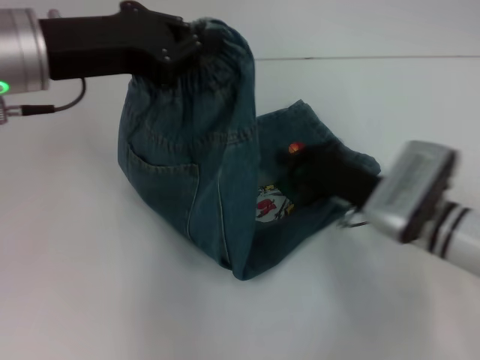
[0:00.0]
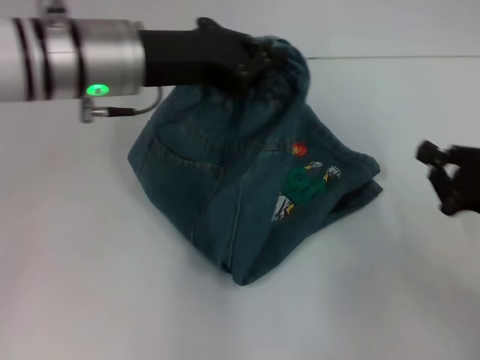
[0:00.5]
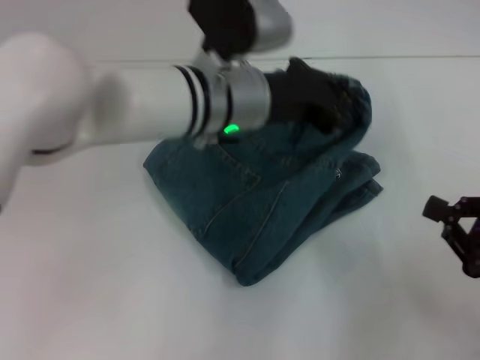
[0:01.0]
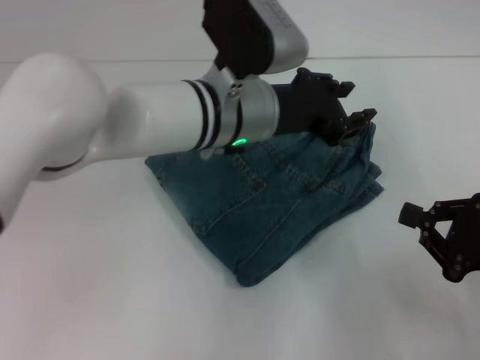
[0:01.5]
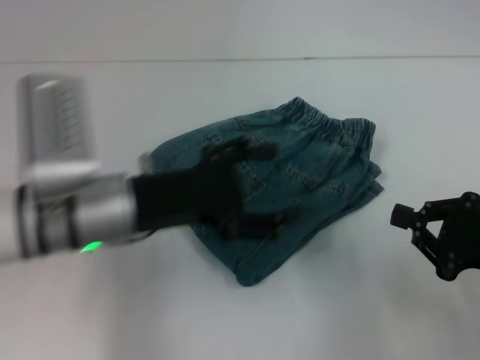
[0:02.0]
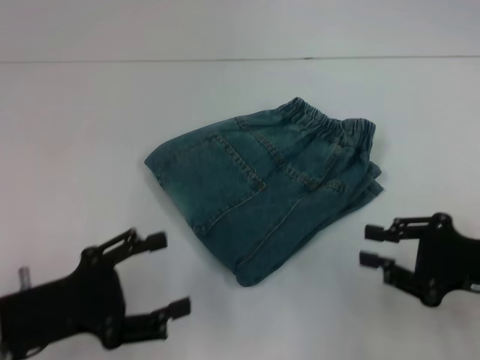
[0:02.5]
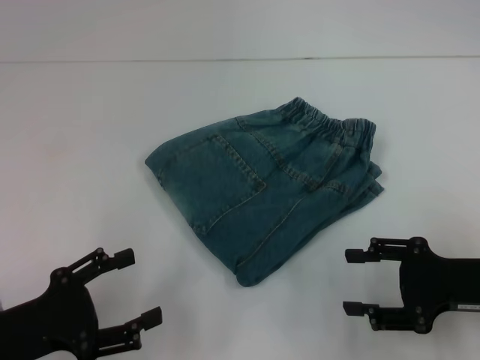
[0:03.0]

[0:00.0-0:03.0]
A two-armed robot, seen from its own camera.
Step, 0:00.0 to 0:01.5: Fold to the right with your left hand.
0:00.0 to 0:01.5: The right gripper is displaced to the right and backward by approximately 15 cm, while the left gripper is displaced to the right and downward by roughly 20 cm.
0:01.5 to 0:03.0: The right gripper opens. Meanwhile the left gripper goes some 35 cm to the left, backward and downward, and opens up.

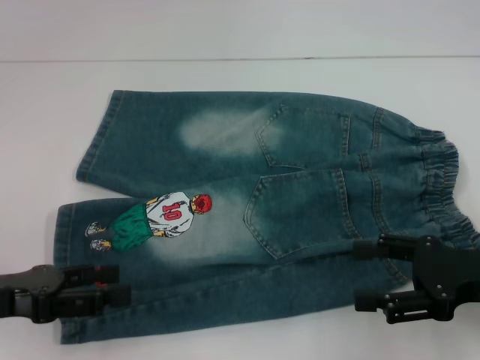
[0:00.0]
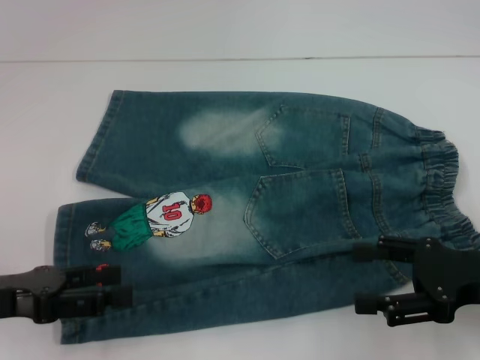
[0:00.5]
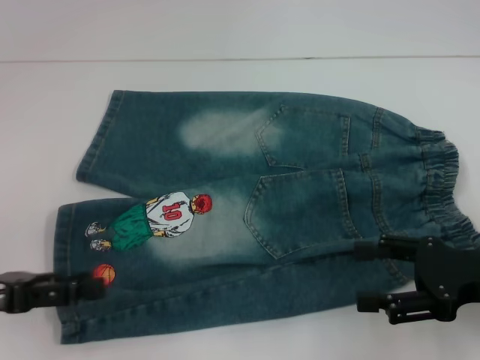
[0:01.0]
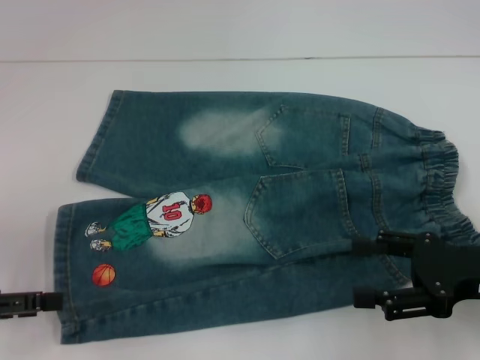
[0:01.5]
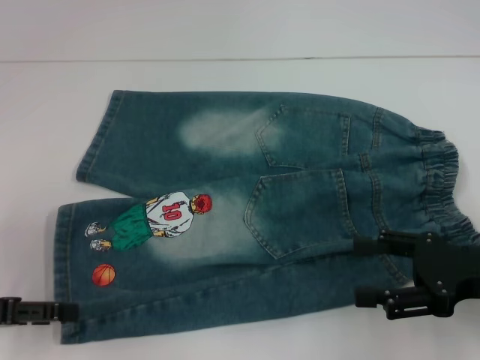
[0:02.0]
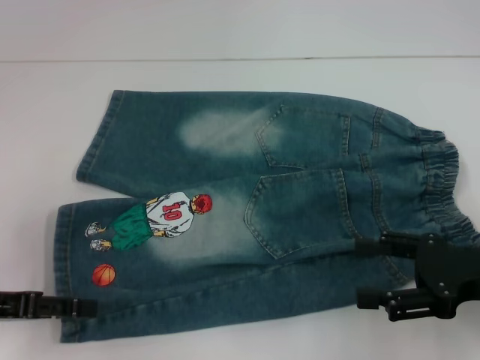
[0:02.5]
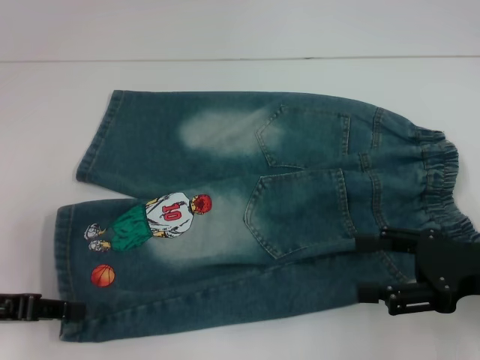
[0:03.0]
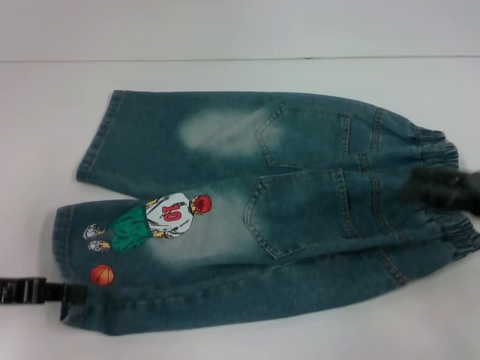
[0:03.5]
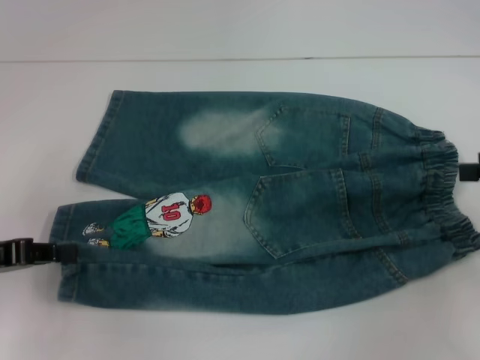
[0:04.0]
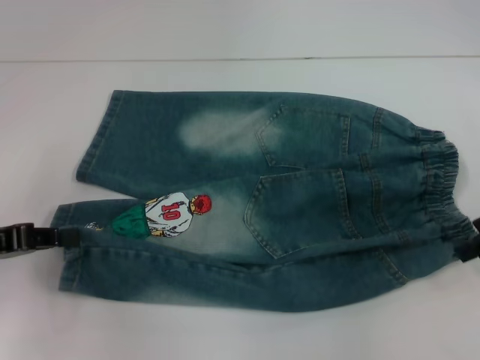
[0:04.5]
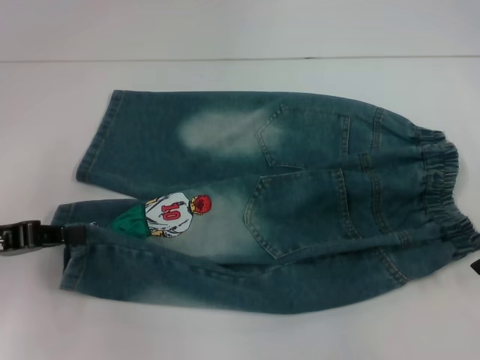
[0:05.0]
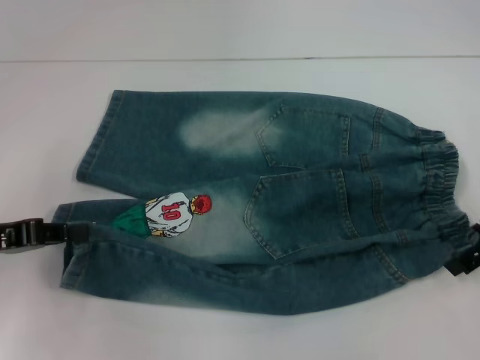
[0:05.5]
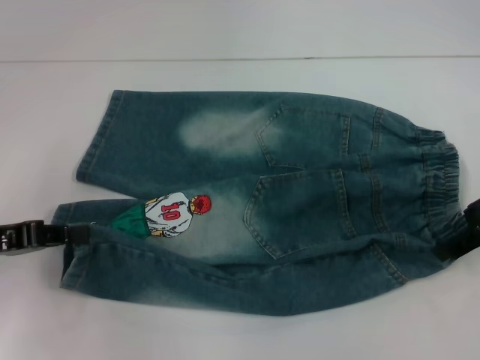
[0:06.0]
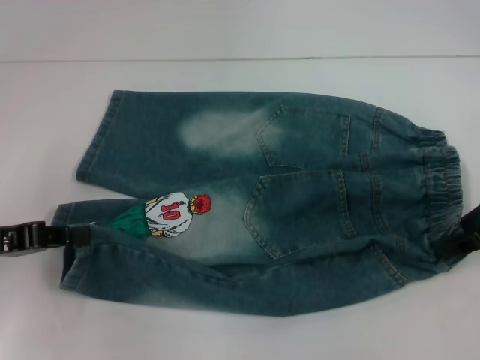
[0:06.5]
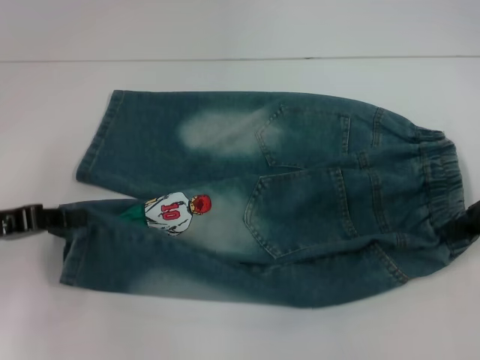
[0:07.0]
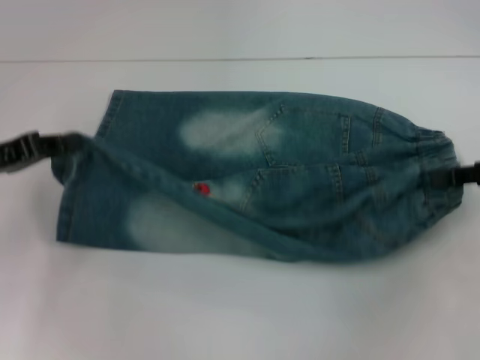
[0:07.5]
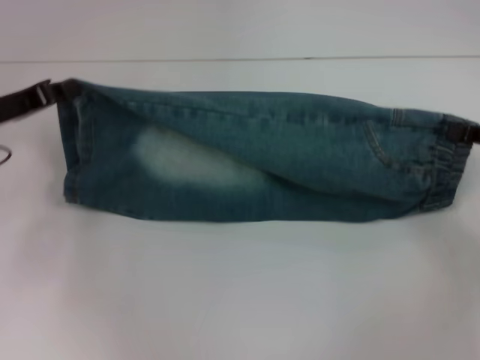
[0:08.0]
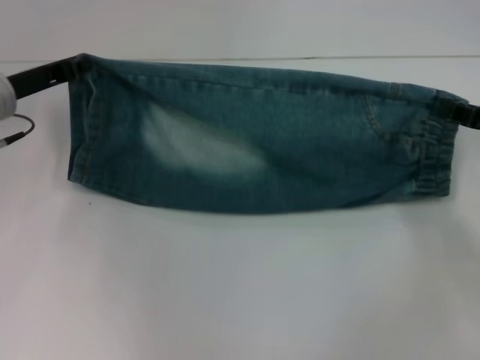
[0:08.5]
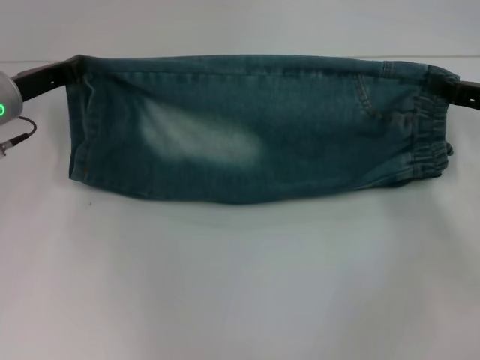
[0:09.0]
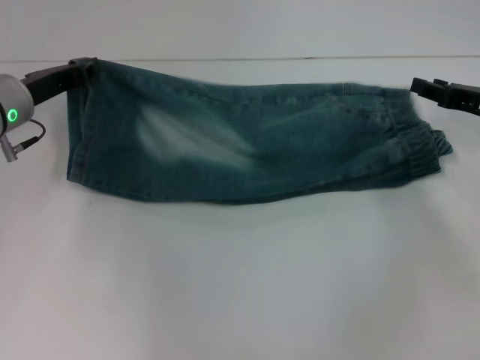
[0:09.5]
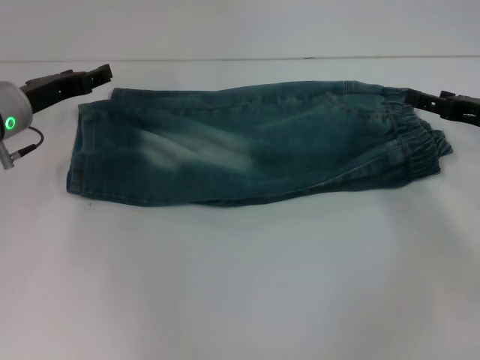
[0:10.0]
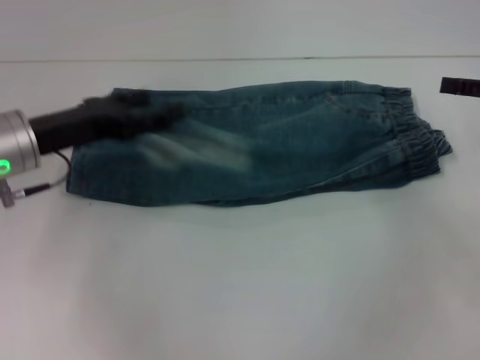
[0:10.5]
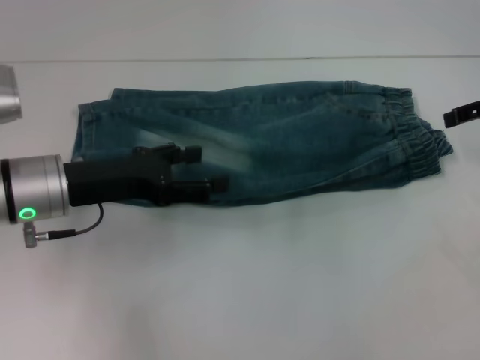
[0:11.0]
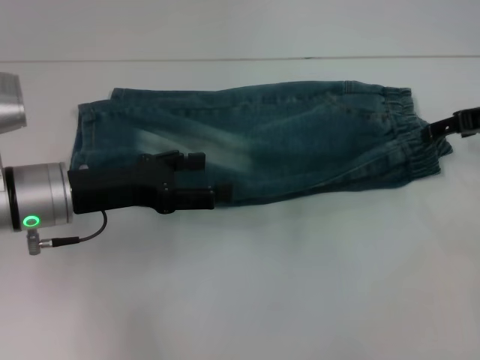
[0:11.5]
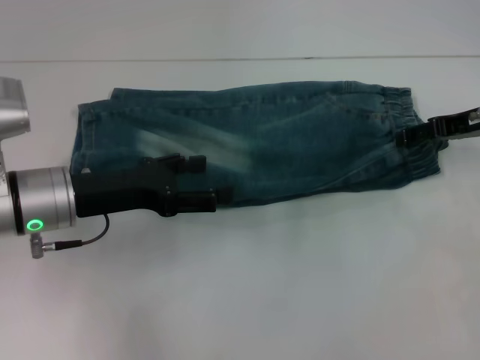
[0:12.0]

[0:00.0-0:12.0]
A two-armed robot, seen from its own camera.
Step, 0:00.0 to 0:02.5: Grab the lower left pant leg with your left hand.
Step, 0:03.5 to 0:05.5: Hold the lower right waistband with your right hand.
Step, 0:06.0 to 0:10.0: Fold upward with your right hand.
0:02.0 to 0:04.0: The left gripper closes its fingers. Meanwhile the right gripper goes roughly 15 cm to the right, upward and forward.
0:04.0 to 0:06.0: The right gripper goes about 10 cm to the left.
0:06.0 to 0:08.0: The left gripper heads forward, covering approximately 10 cm. The right gripper goes about 10 cm to the right and downward, and closes.
0:08.0 to 0:10.0: The left gripper shifts by approximately 5 cm, and opens its fingers. Meanwhile the right gripper changes place by roughly 5 cm, and opens up.
0:10.0 to 0:12.0: The left gripper shifts roughly 10 cm backward, and opens.

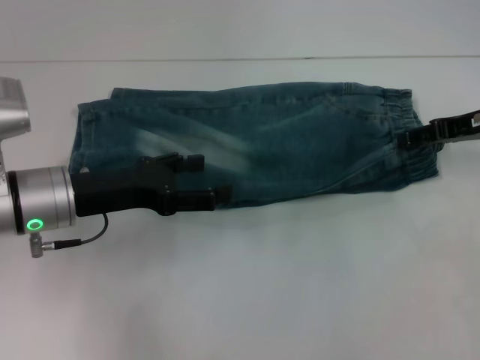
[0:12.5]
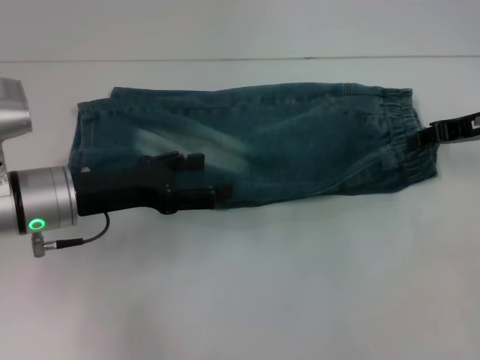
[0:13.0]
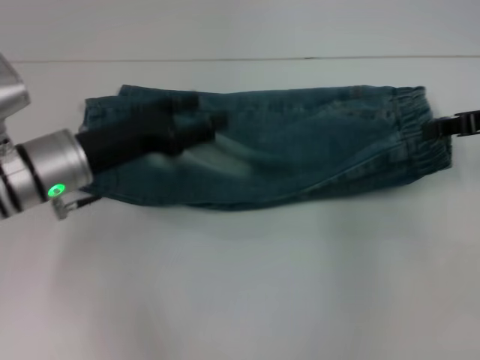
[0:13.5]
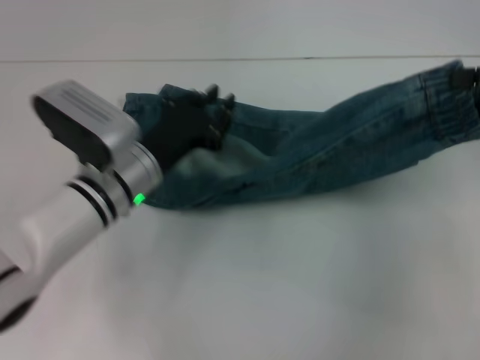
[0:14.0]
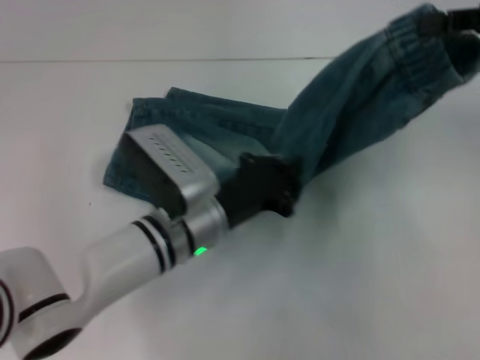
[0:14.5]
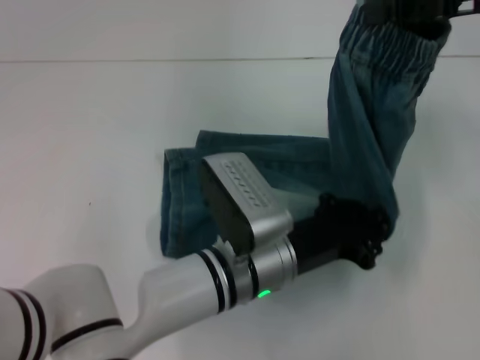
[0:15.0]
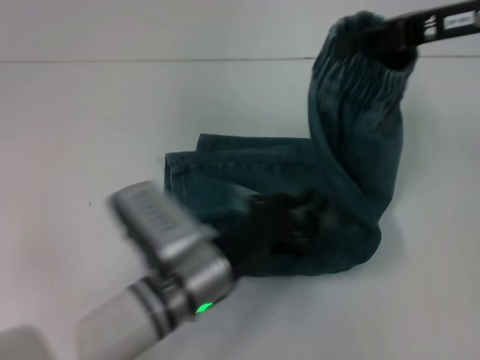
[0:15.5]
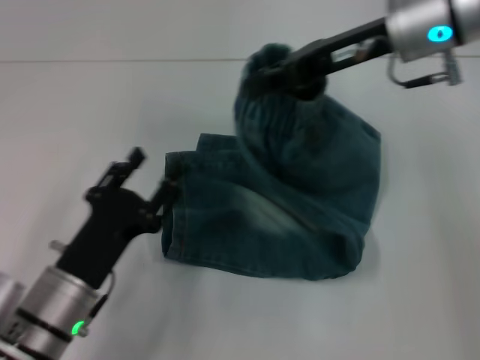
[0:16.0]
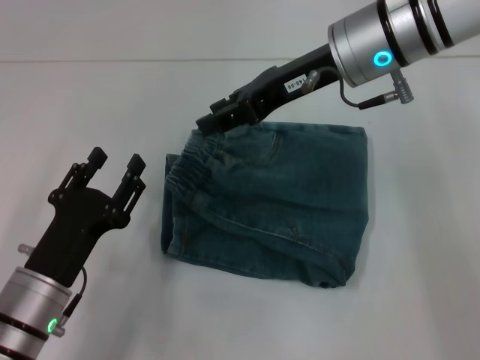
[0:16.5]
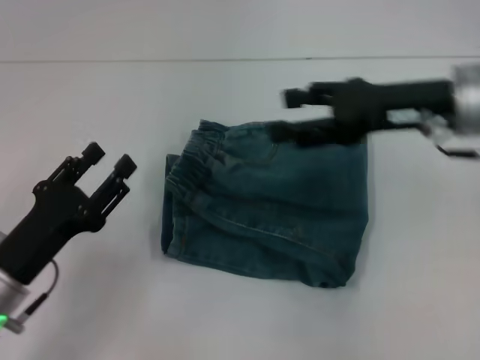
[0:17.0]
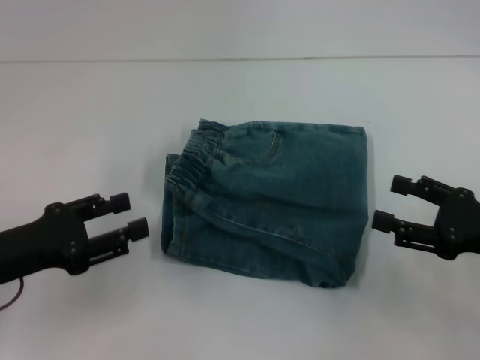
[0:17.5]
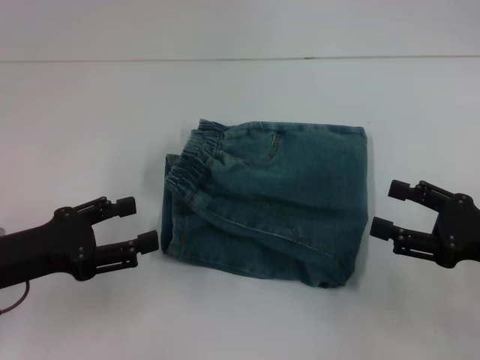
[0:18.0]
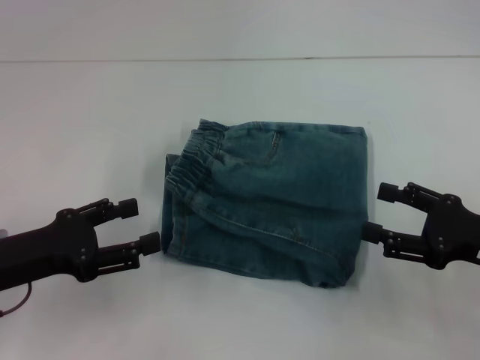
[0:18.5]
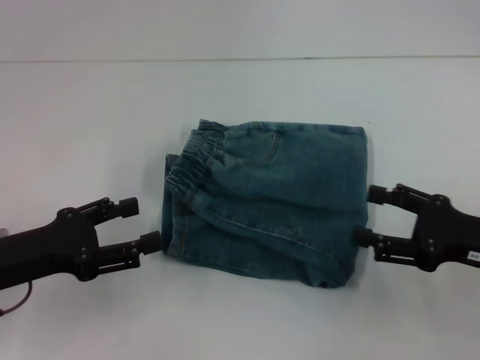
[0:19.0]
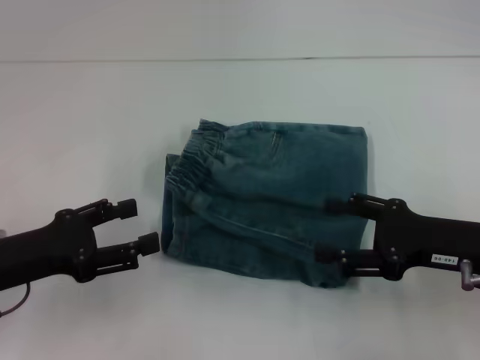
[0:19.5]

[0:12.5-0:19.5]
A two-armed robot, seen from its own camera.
Step, 0:13.0 to 0:15.0: Press the middle of the pants with your left hand.
Step, 0:15.5 to 0:16.5: Fold to the left with your right hand.
0:12.5 to 0:14.5: The left gripper goes approximately 15 cm to the right and downward, and closes up. The right gripper is displaced upward by roughly 10 cm, and closes.
0:14.5 to 0:16.0: The right gripper travels to the left by some 15 cm. Meanwhile the left gripper goes approximately 15 cm to the left and backward, and opens.
0:16.0 to 0:17.5: The right gripper shifts roughly 25 cm backward, downward and to the right, and opens. Meanwhile the left gripper goes roughly 15 cm to the left and upward.
0:17.5 to 0:19.5: The right gripper ends up approximately 5 cm from where it was.
